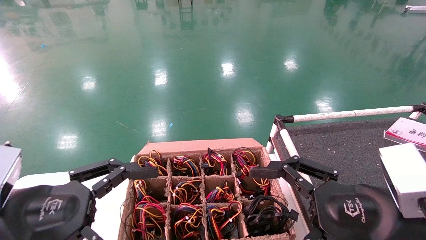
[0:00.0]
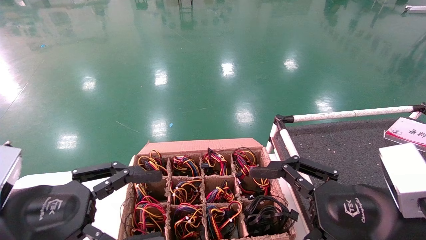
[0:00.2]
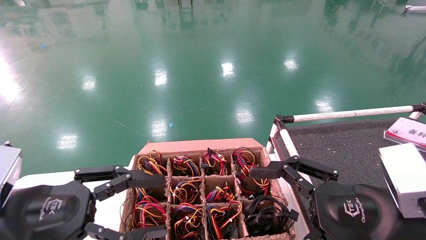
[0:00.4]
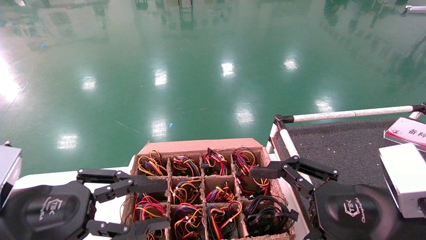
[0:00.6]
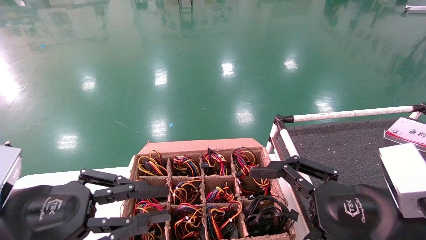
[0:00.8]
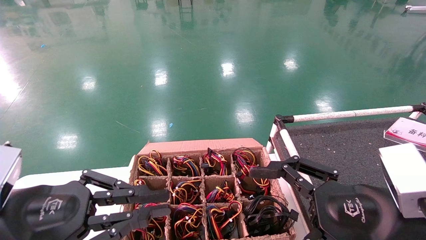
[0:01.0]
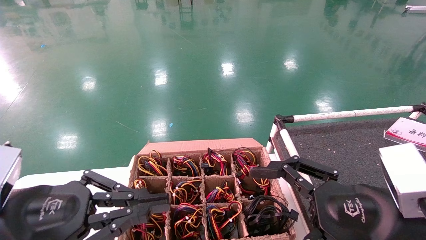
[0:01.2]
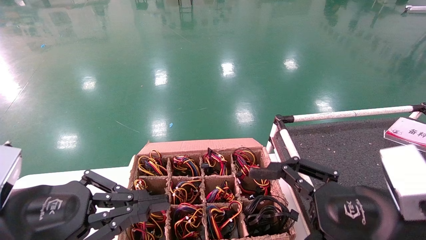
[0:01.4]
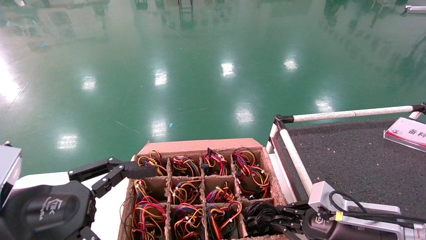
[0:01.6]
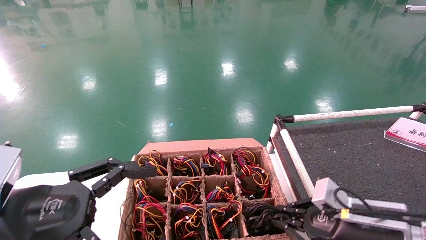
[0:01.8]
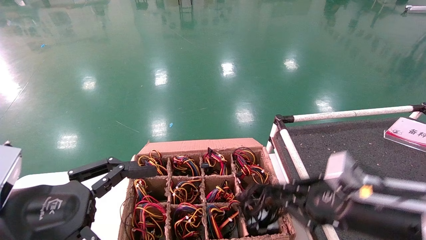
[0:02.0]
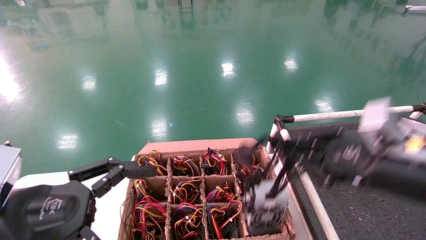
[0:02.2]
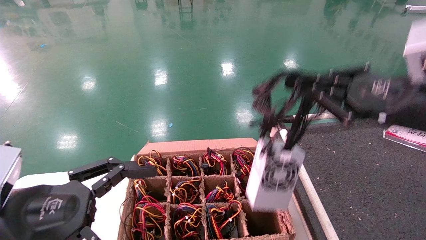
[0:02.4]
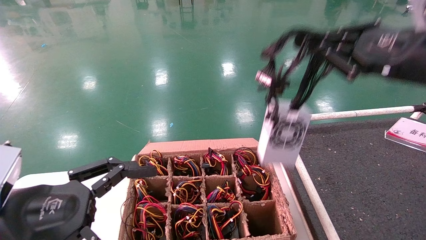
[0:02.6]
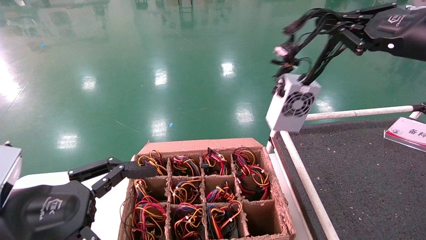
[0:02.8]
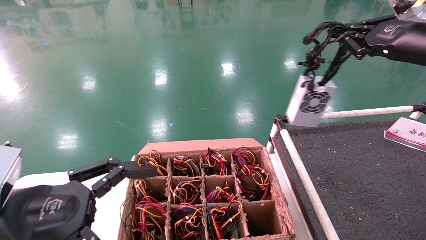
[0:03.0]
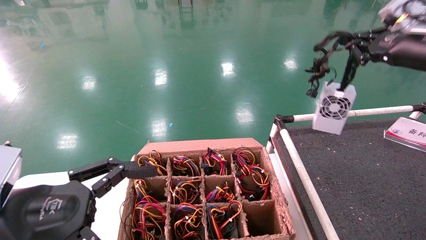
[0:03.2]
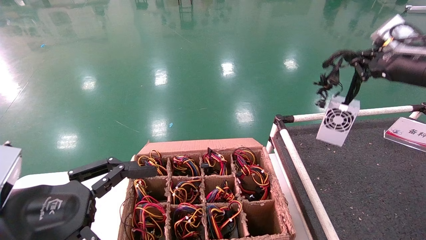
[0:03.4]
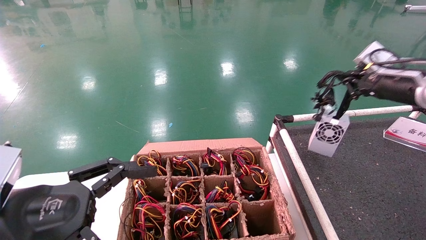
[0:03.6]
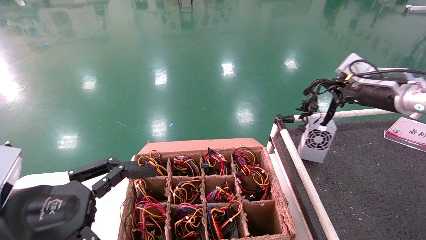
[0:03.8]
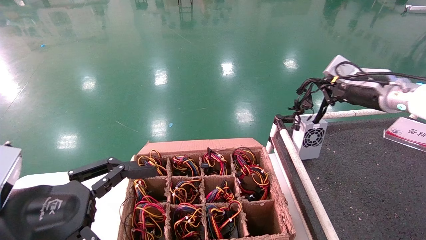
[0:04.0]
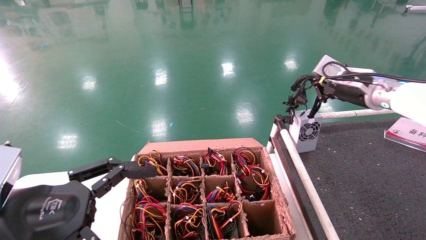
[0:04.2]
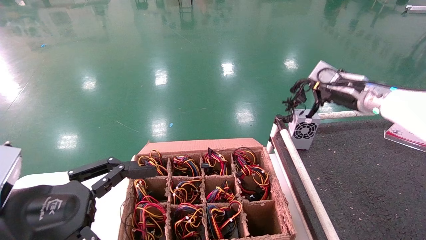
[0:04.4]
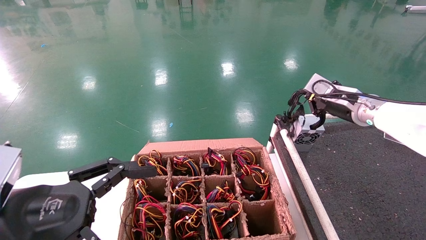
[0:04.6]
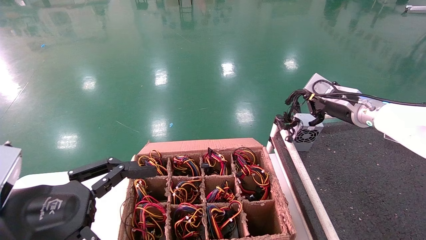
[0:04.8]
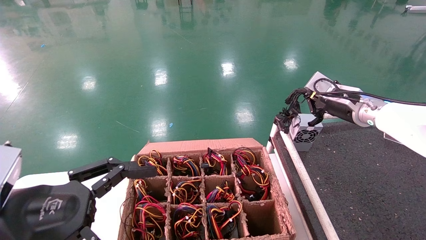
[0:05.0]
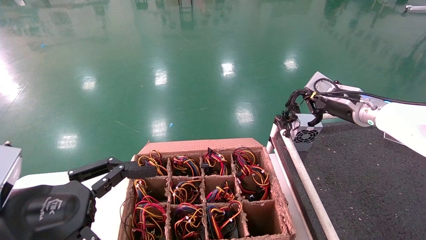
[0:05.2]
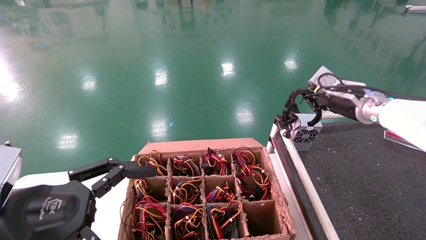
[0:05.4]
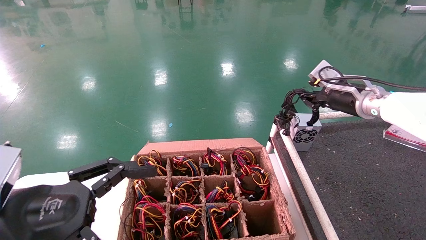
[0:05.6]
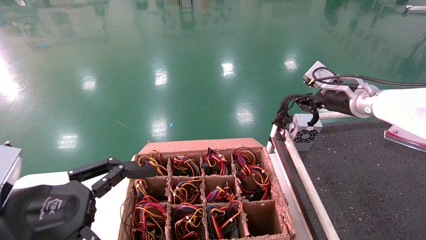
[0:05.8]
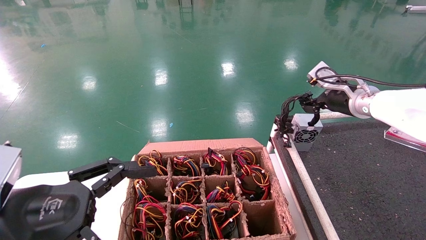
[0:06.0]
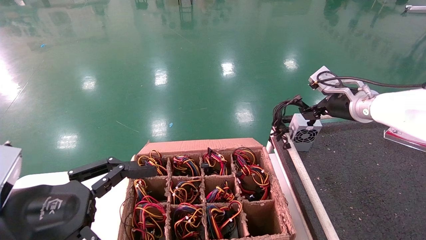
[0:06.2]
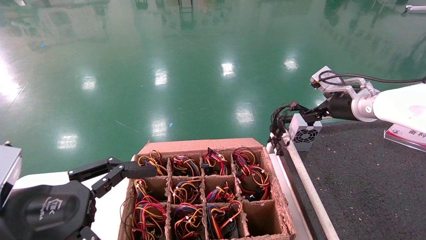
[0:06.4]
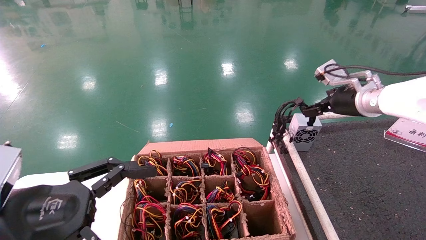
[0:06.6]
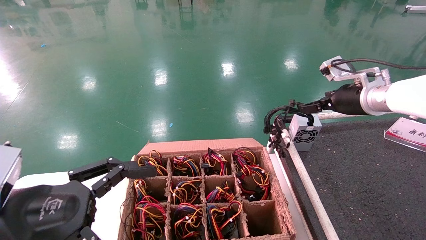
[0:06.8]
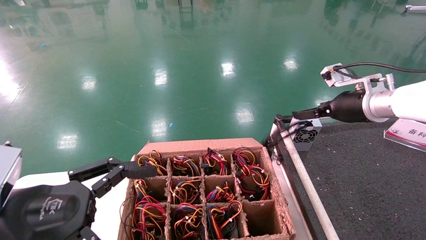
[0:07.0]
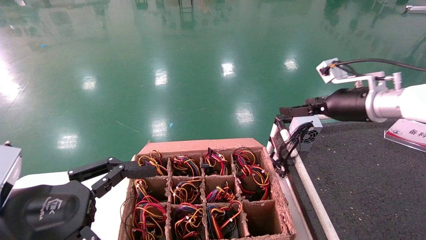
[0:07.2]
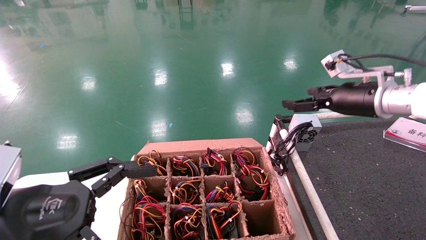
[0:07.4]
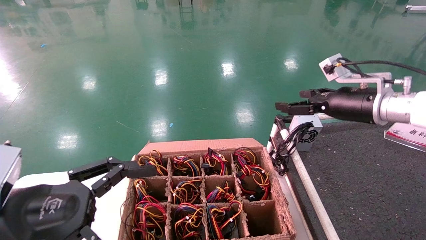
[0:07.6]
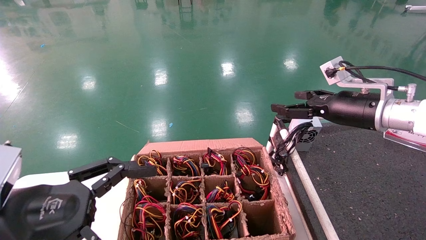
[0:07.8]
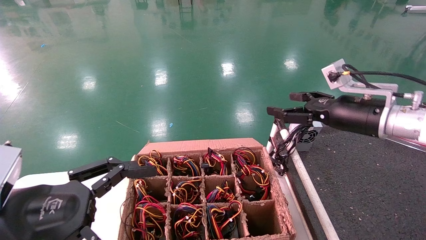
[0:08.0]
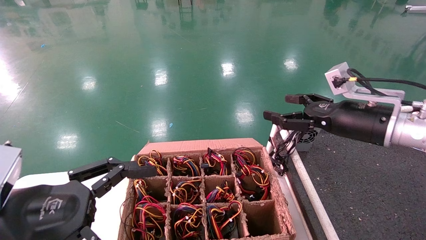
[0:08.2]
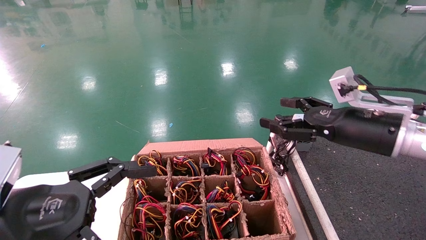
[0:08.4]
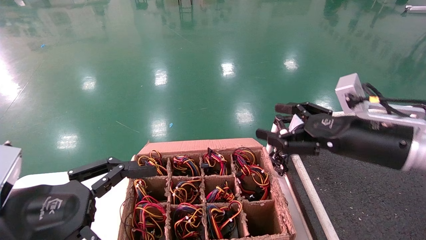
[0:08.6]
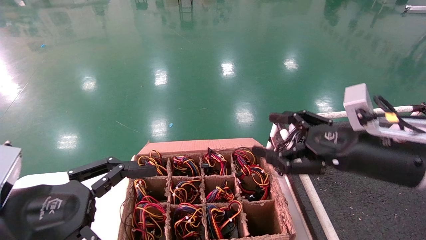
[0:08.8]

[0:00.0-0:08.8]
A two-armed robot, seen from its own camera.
Step, 0:01.8 to 0:03.6: Grab and lift the power supply from the large box.
Step, 0:03.8 to 0:06.8: Place the power supply on the operating table.
0:00.0 to 0:01.4: The left gripper closes.
0:01.4 to 0:03.0: The left gripper opens its fingers. Meanwhile the right gripper moves downward and forward, some 15 cm, and closes its fingers.
0:03.0 to 0:04.4: The right gripper is displaced upward by about 25 cm, and closes up.
0:04.4 to 0:05.8: The right gripper heads forward, covering roughly 15 cm.
0:05.8 to 0:07.4: The grippers move only a little.
0:07.4 to 0:08.8: The right gripper opens up.
